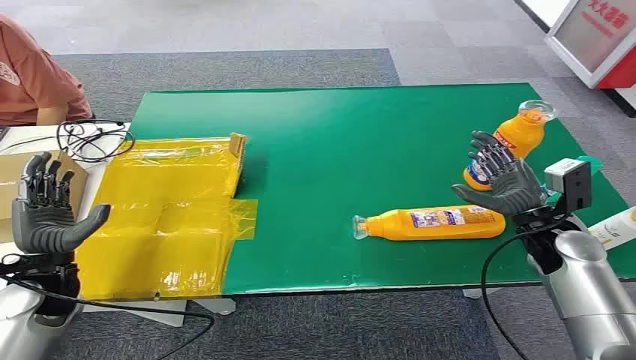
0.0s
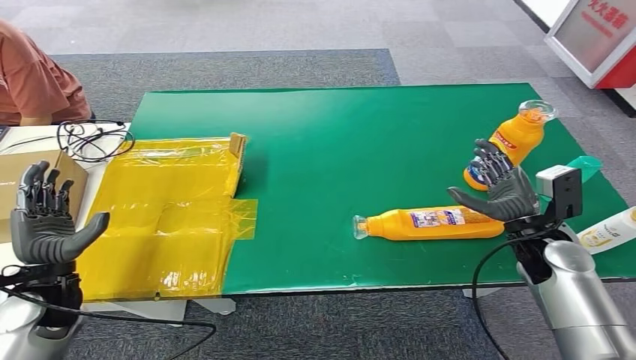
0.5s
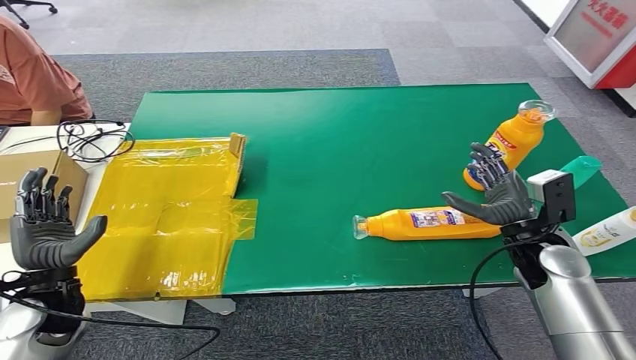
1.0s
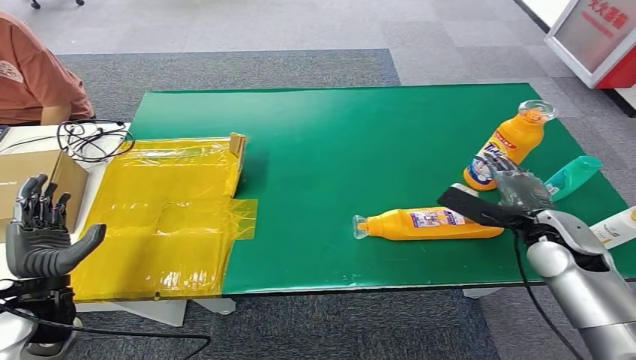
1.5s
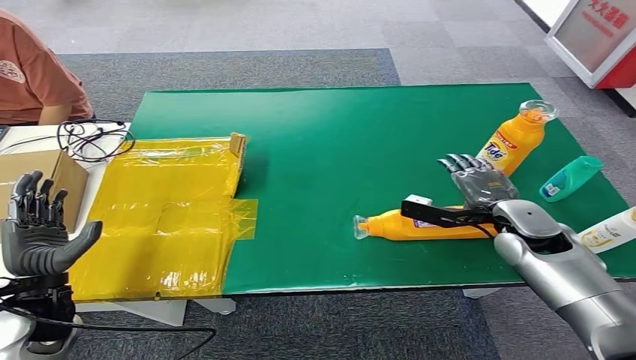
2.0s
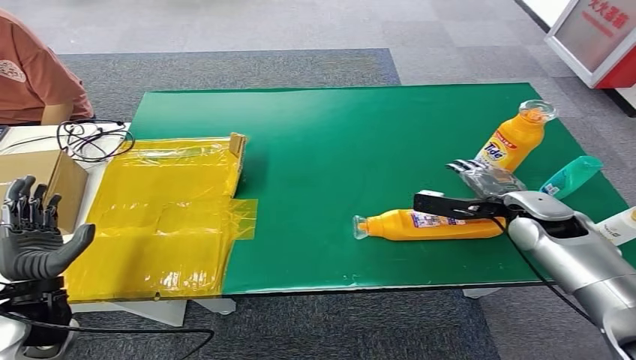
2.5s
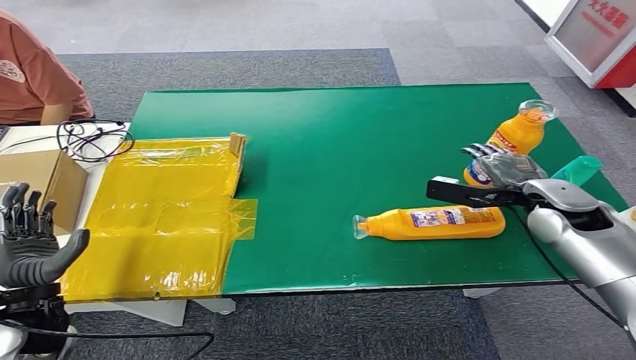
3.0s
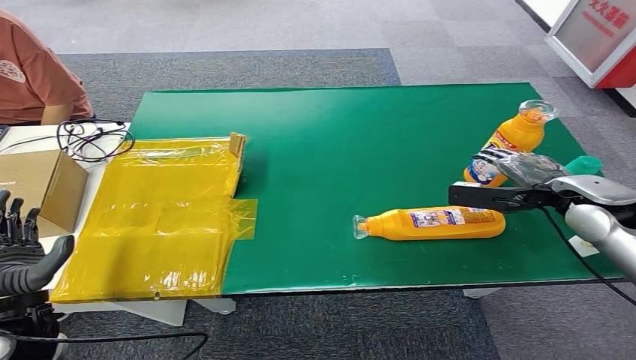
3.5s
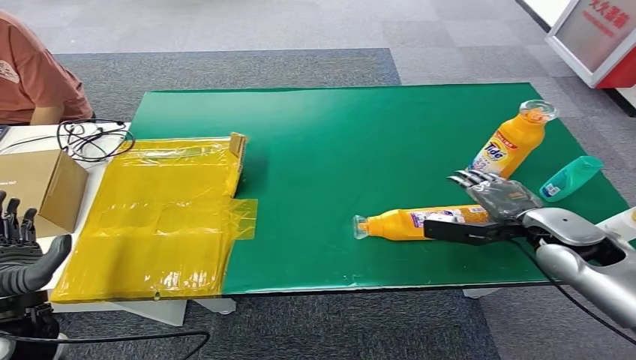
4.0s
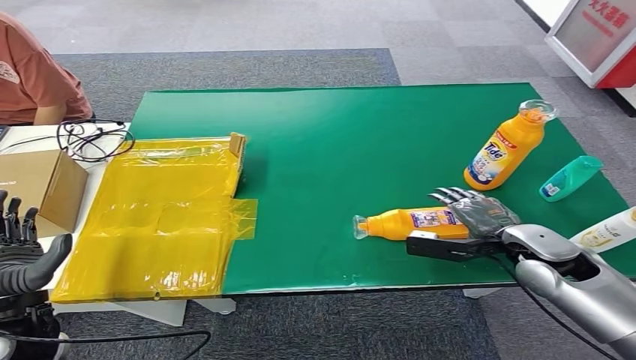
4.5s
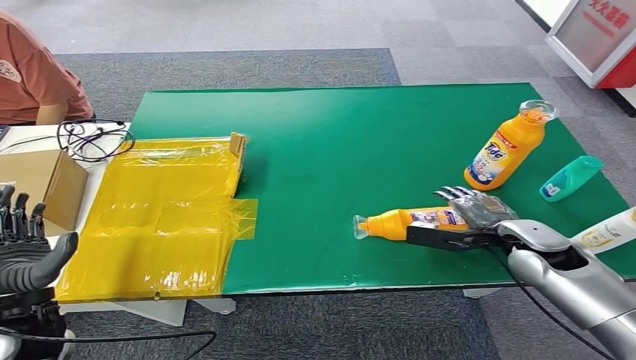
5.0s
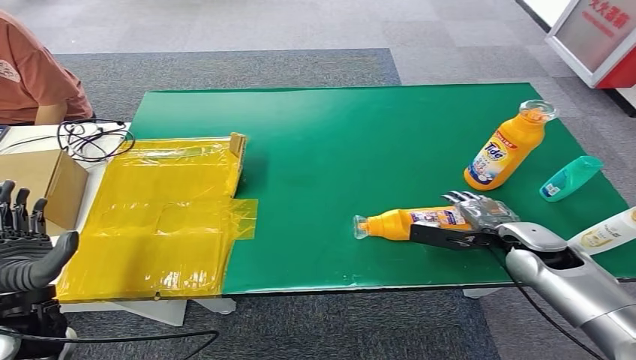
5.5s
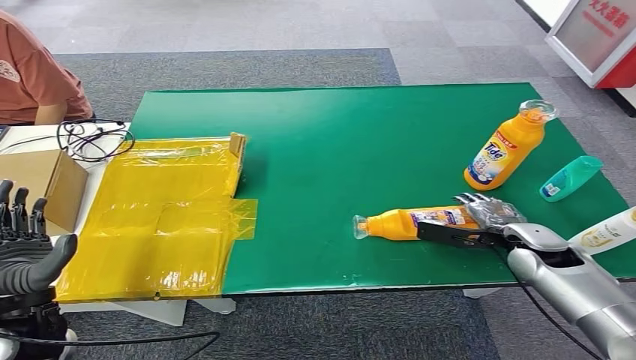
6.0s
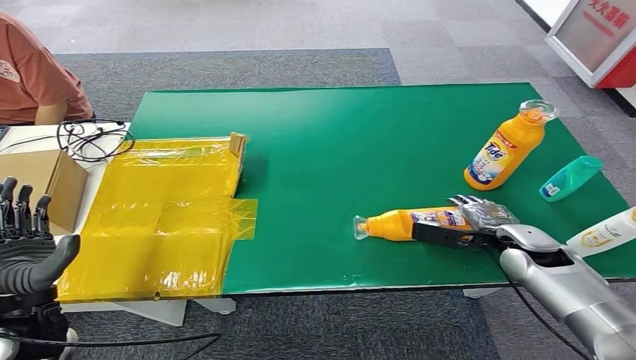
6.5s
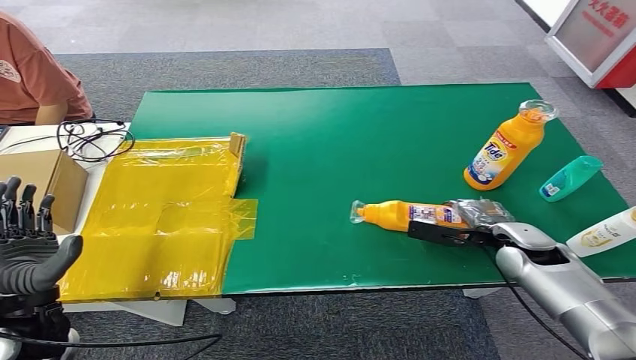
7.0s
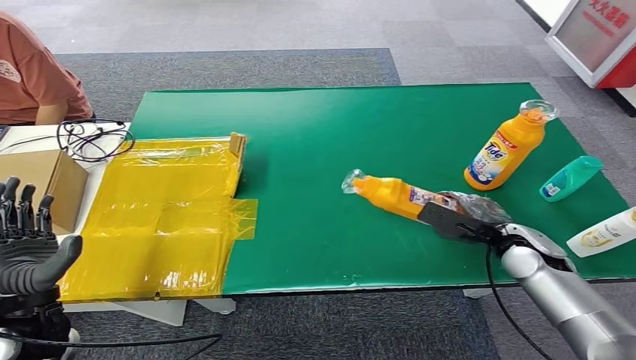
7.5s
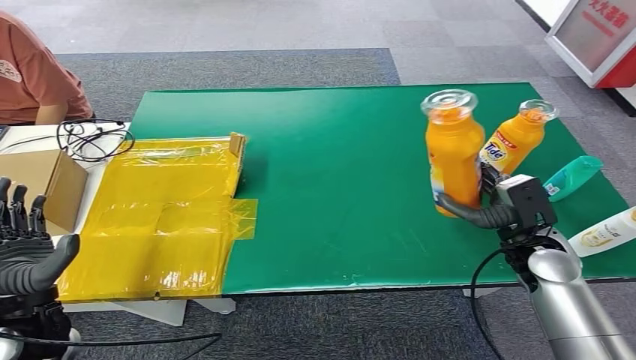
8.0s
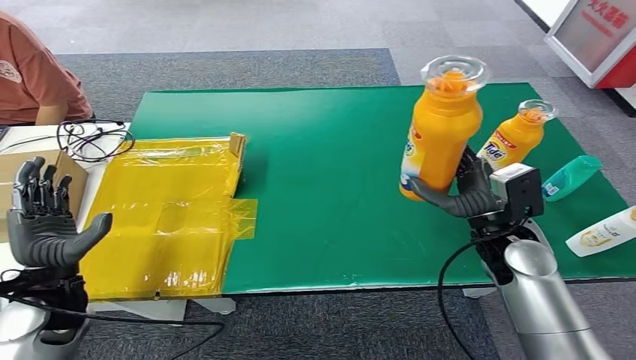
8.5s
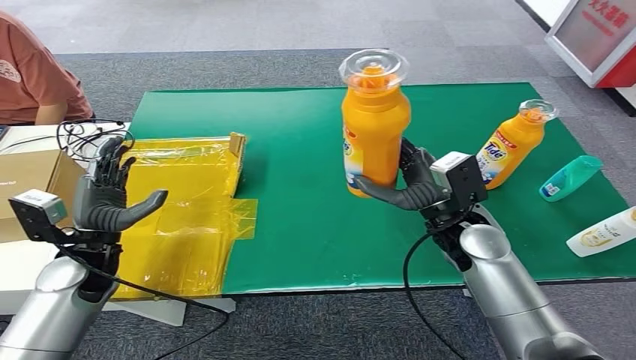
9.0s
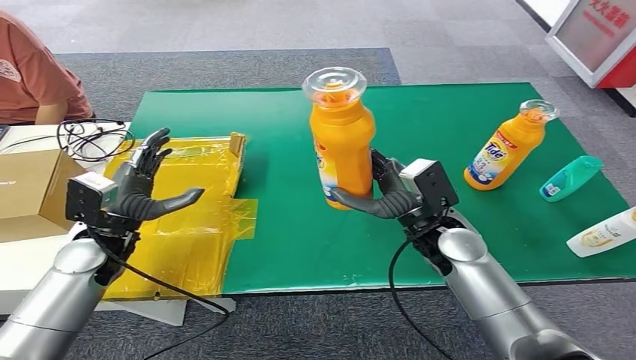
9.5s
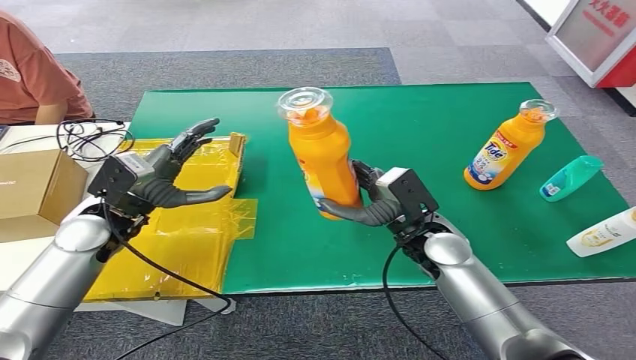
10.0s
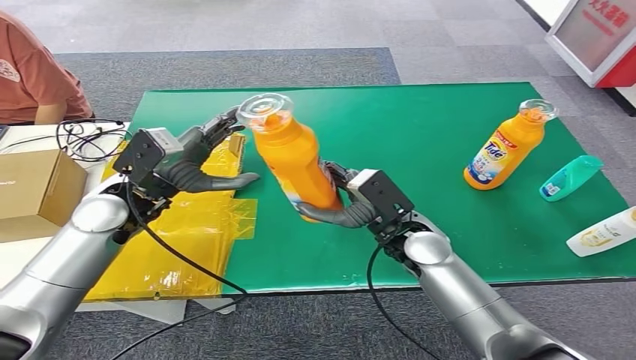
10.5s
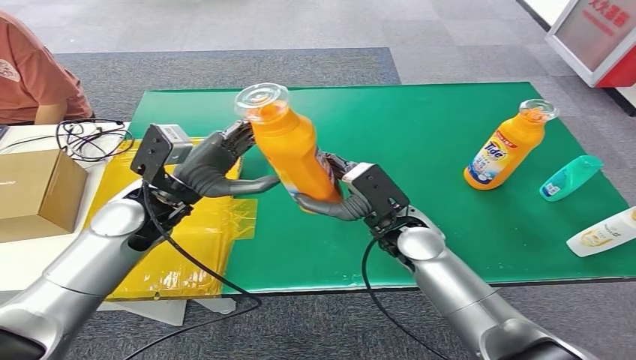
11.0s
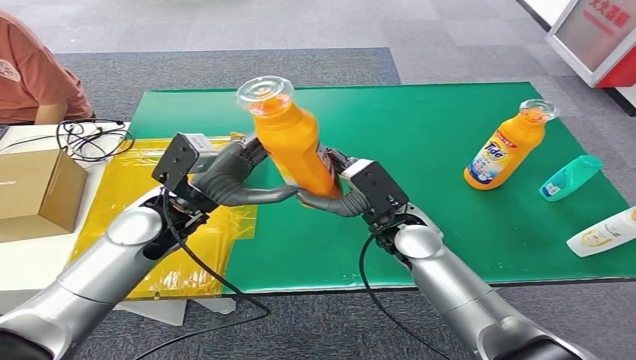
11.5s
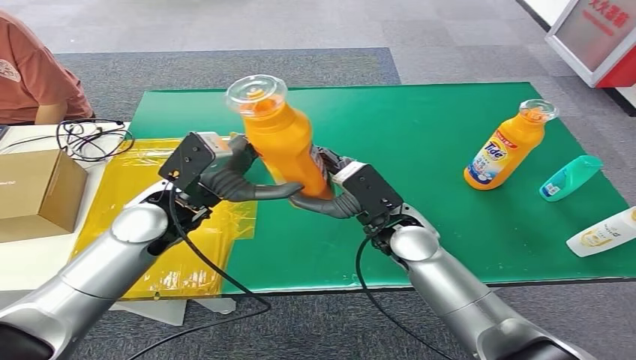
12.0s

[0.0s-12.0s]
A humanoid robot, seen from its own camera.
Step, 0.0s to 7.5s: Pick up the bottle from the table.
4.0s to 6.0s: The right hand goes approximately 5 cm downward.

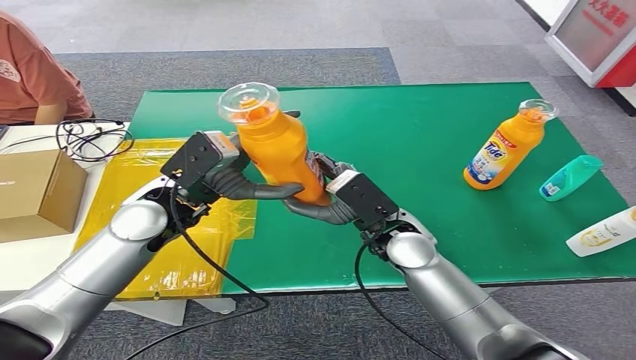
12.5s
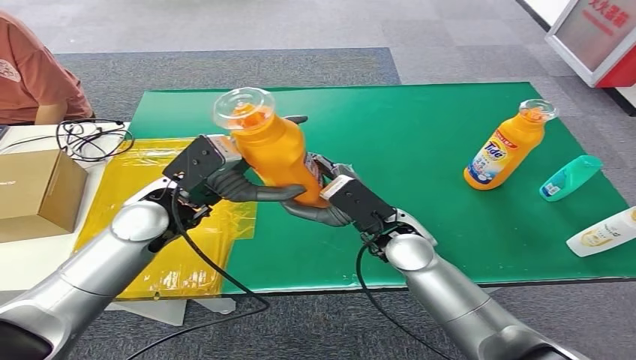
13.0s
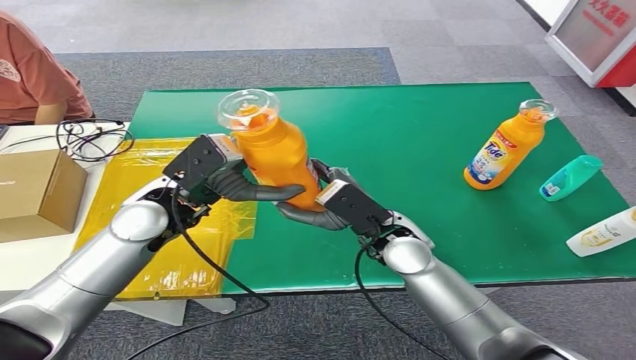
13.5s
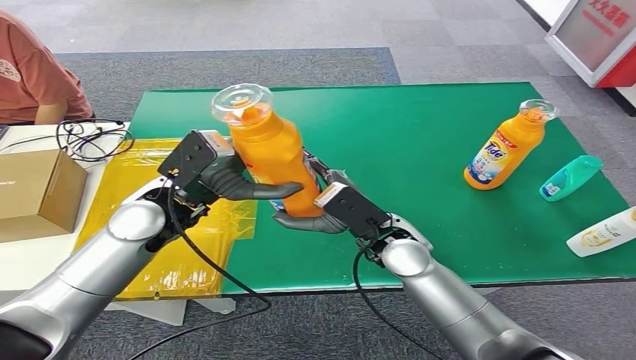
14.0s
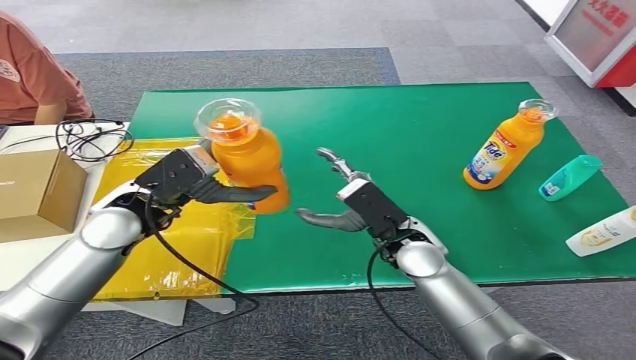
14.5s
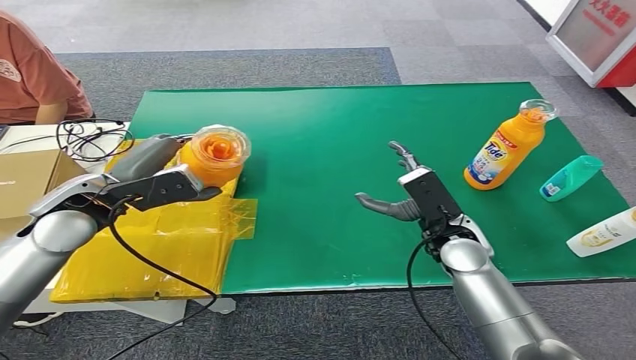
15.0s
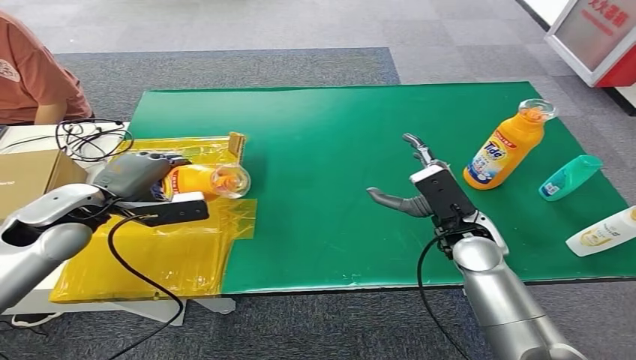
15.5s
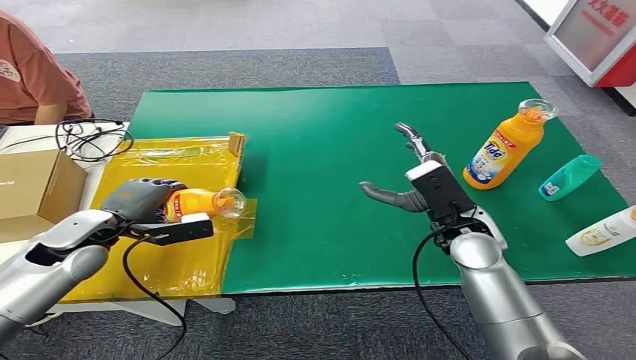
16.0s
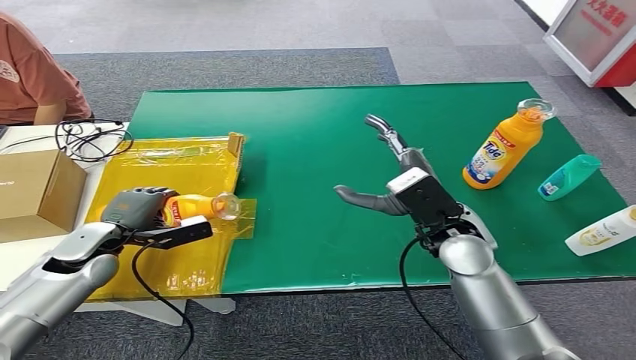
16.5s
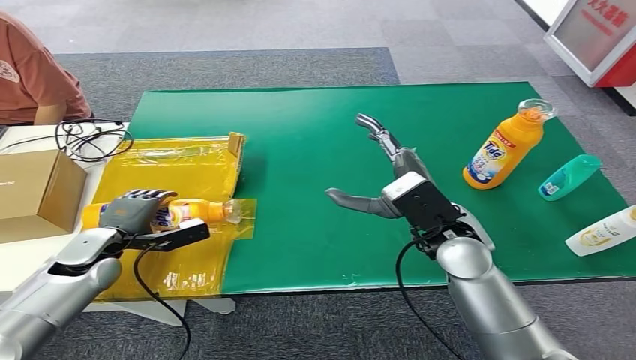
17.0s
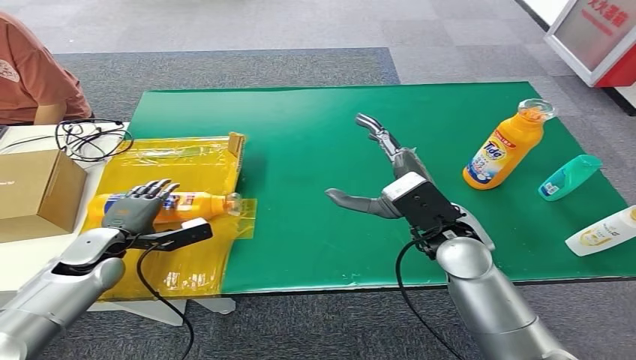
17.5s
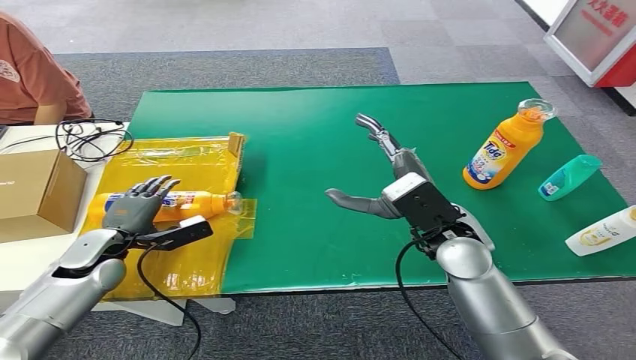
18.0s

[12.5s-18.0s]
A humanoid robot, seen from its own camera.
Step, 12.5s to 18.0s: Turn the bottle to the front side.
12.5s to 14.5s: The hands make only small movements.
16.0s to 18.0s: The left hand goes about 5 cm downward; the right hand ends up about 5 cm from where it was.
